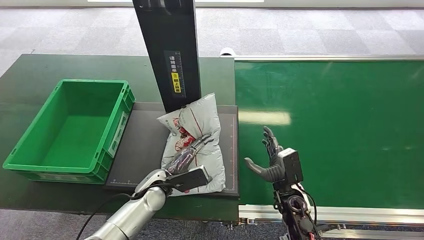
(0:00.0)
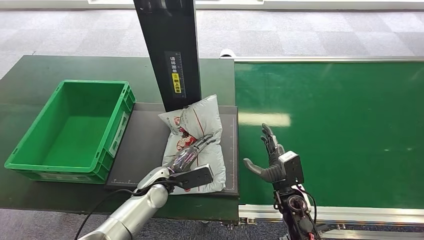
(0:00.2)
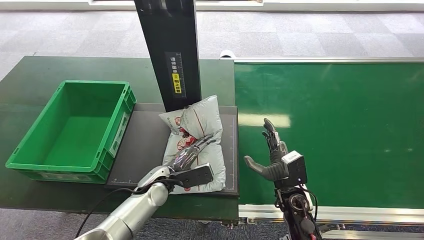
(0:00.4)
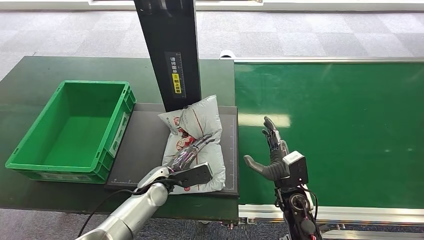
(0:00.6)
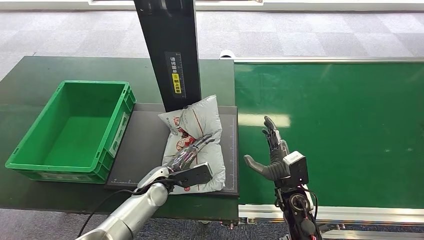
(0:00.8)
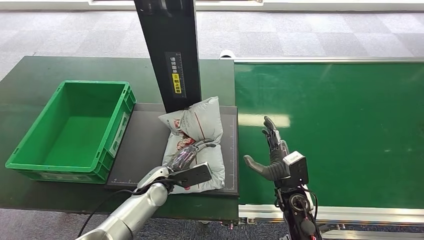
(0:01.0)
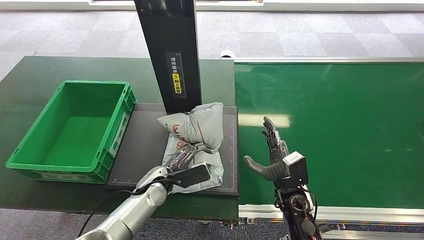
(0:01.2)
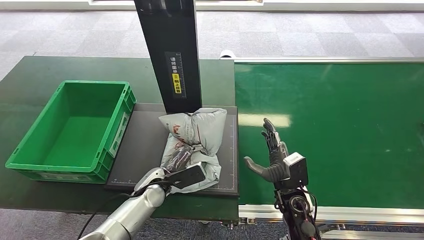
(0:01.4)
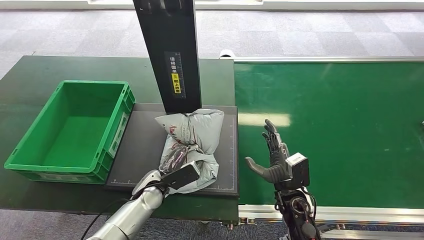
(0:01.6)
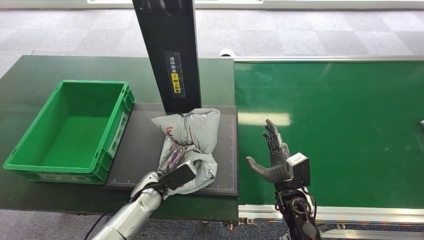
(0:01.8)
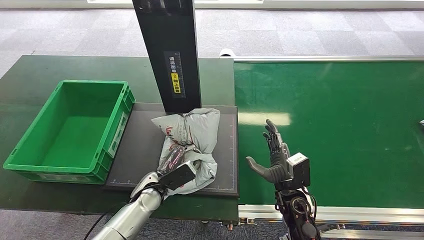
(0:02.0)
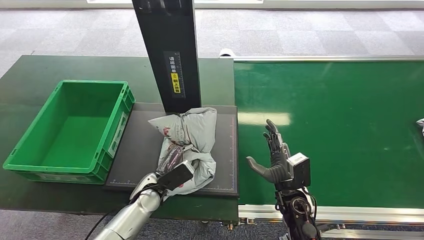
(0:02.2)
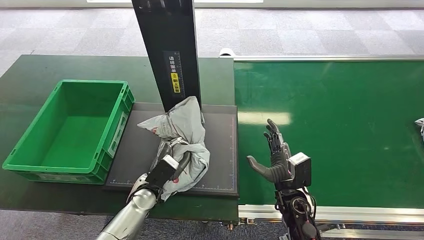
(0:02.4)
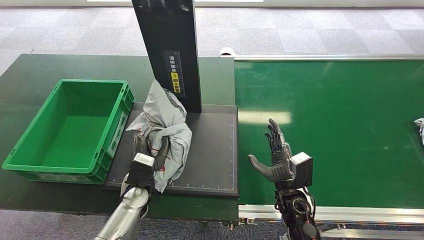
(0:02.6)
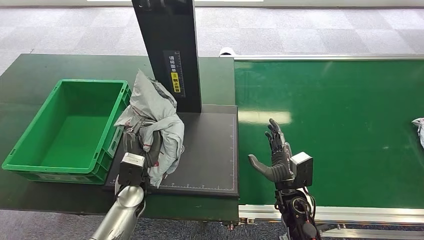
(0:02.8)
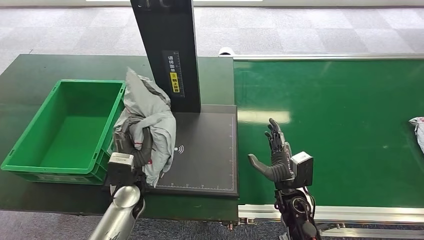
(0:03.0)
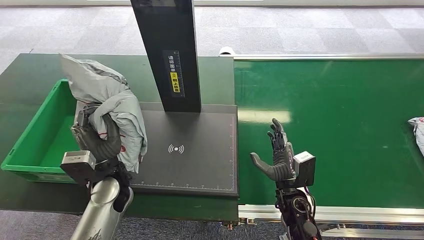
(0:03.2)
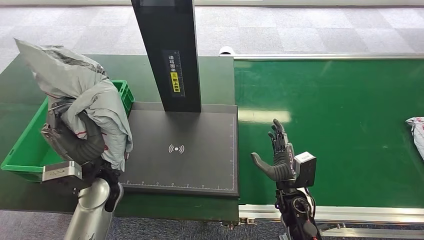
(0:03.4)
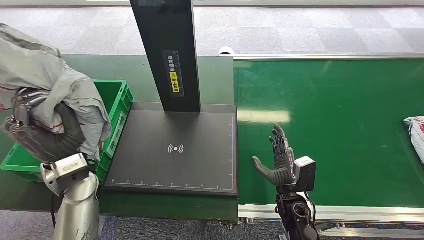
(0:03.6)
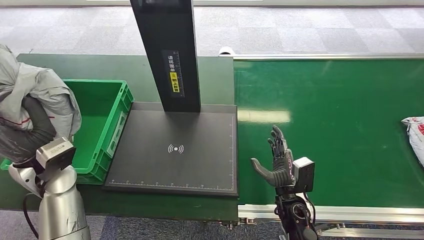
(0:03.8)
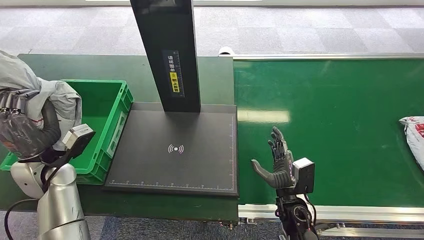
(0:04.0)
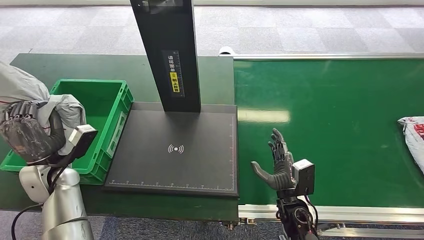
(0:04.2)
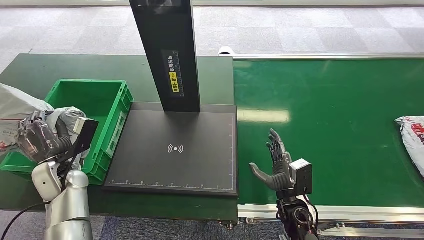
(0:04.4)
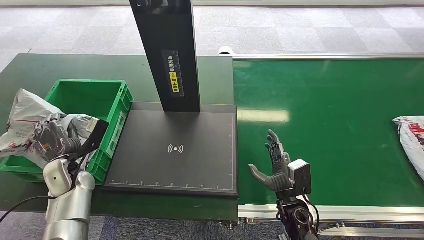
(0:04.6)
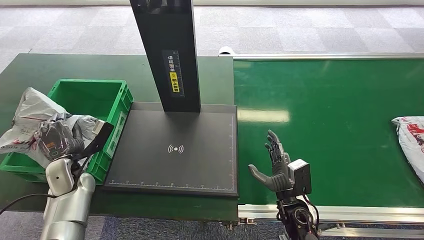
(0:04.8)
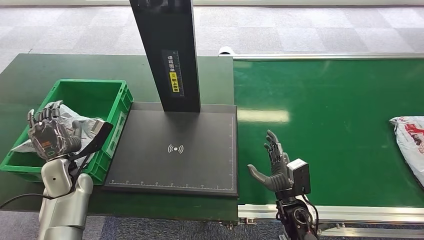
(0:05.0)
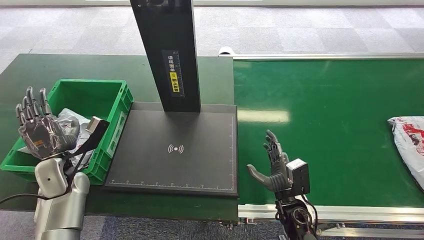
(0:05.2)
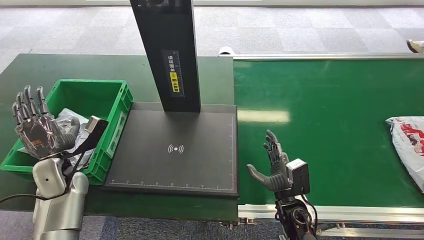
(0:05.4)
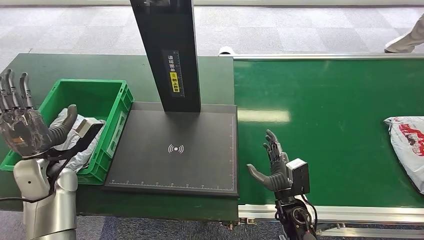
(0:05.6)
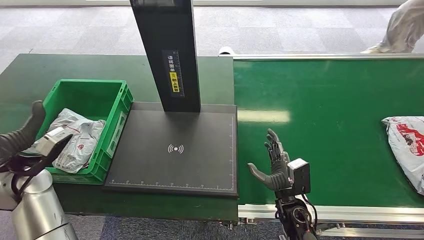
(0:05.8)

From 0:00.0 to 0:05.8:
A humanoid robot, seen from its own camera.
Step, from 0:00.0 to 0:03.0: Pick up the package from the inbound machine.
Step, from 0:03.2 to 0:05.8: Place the package into the parcel locker.
From 0:00.0 to 0:01.4: There are only small adjustments of the hands.
From 0:04.4 to 0:05.8: The left hand goes approximately 10 cm upward.
